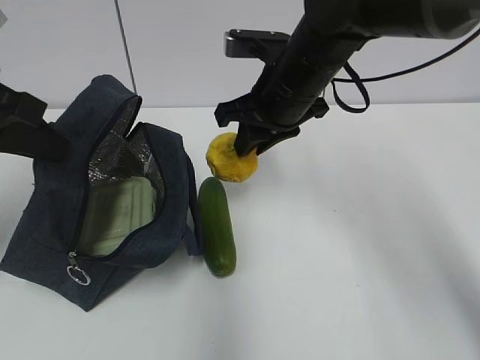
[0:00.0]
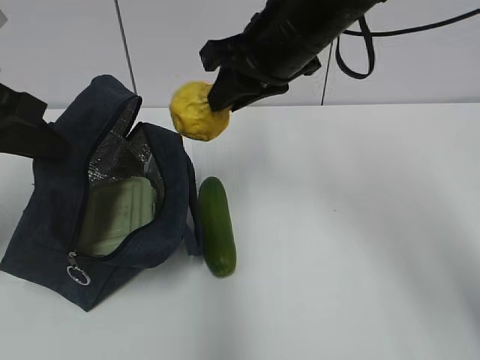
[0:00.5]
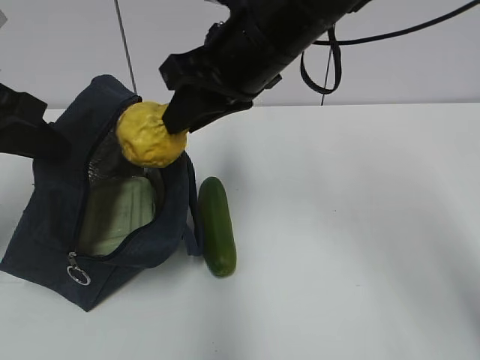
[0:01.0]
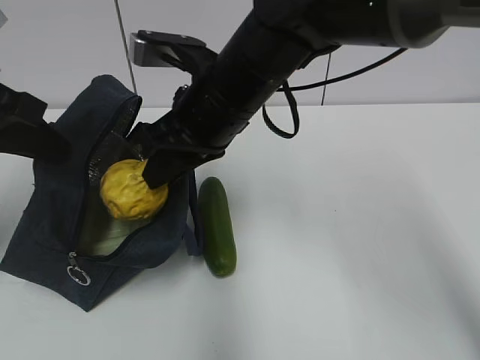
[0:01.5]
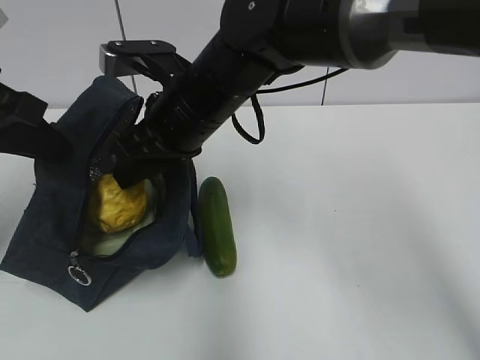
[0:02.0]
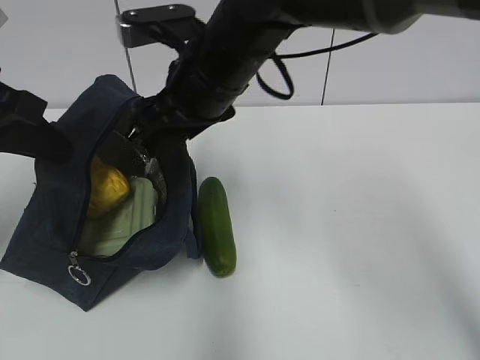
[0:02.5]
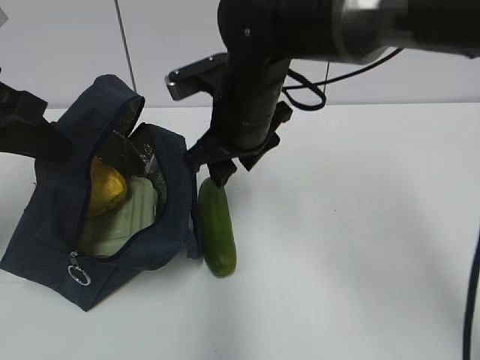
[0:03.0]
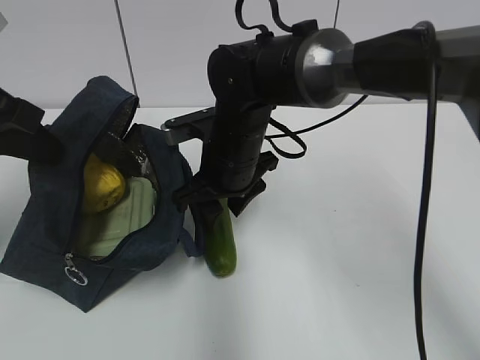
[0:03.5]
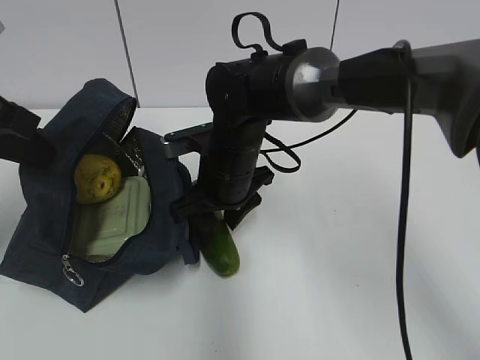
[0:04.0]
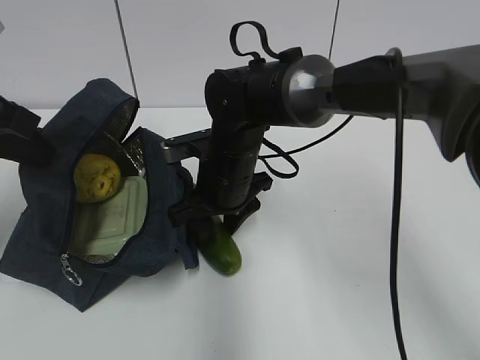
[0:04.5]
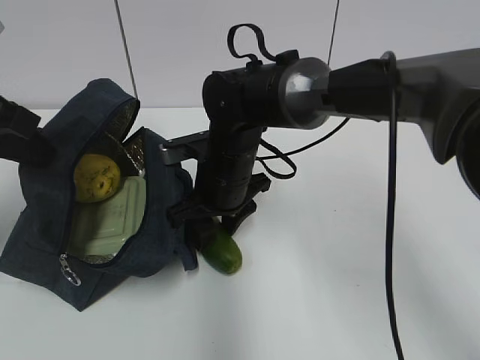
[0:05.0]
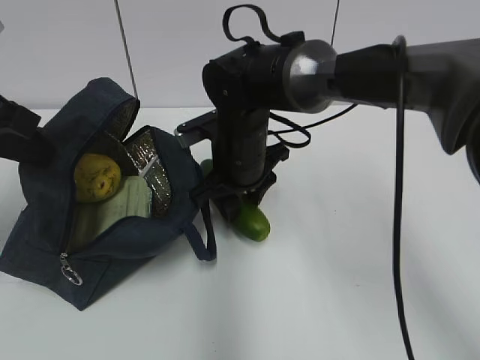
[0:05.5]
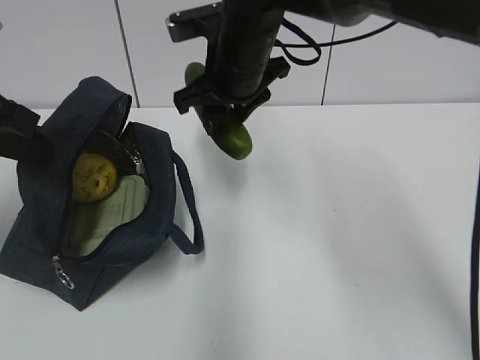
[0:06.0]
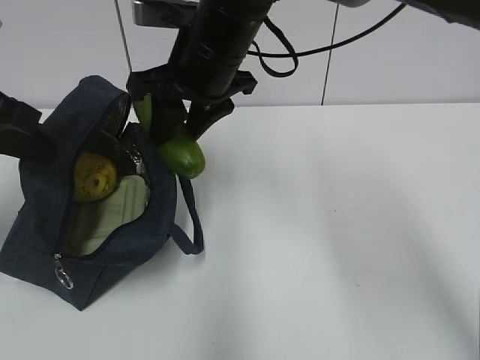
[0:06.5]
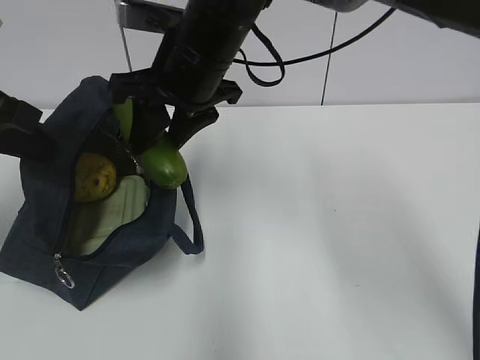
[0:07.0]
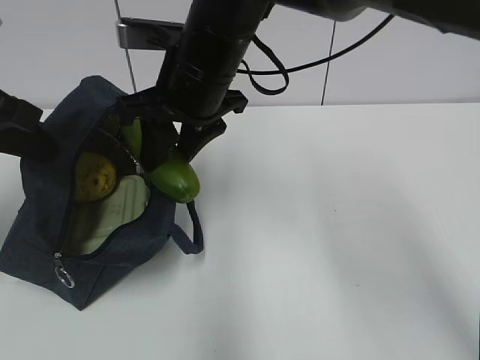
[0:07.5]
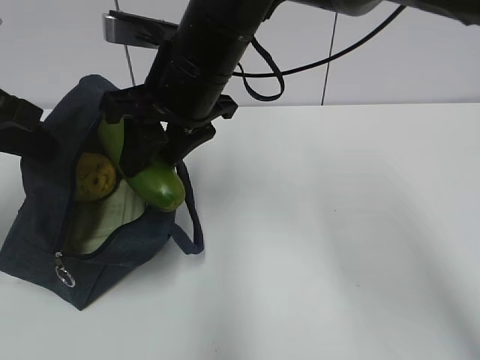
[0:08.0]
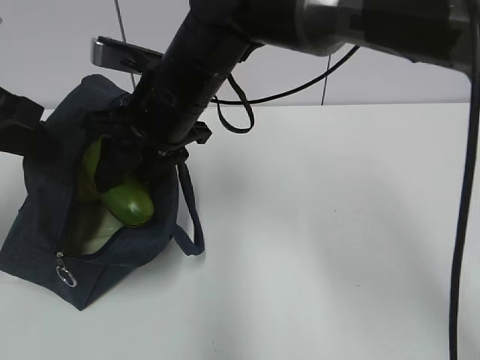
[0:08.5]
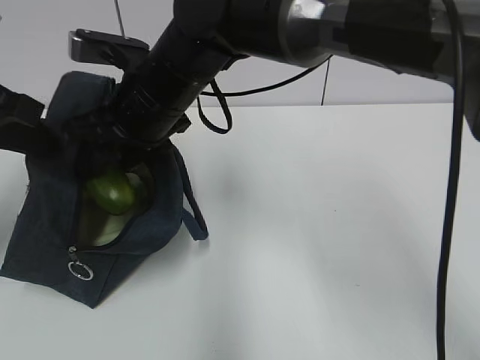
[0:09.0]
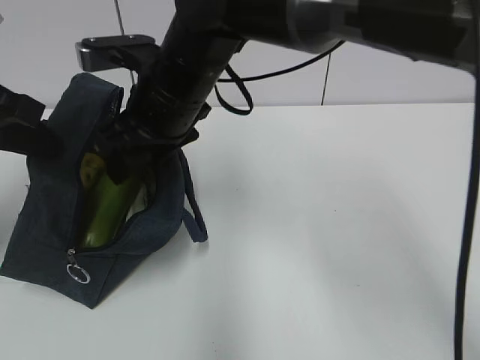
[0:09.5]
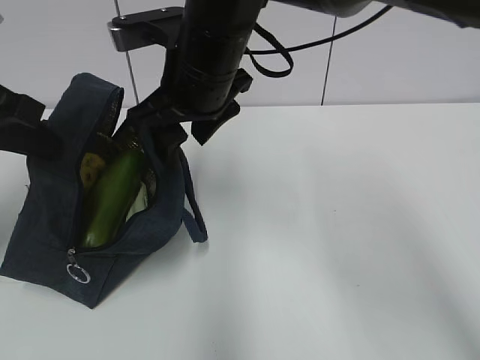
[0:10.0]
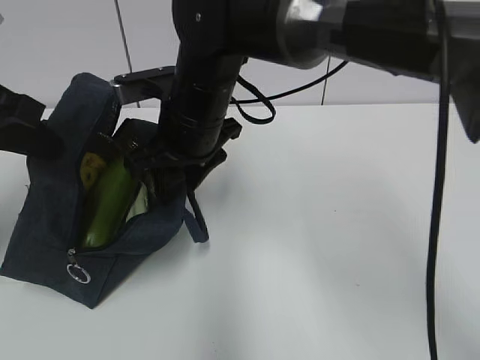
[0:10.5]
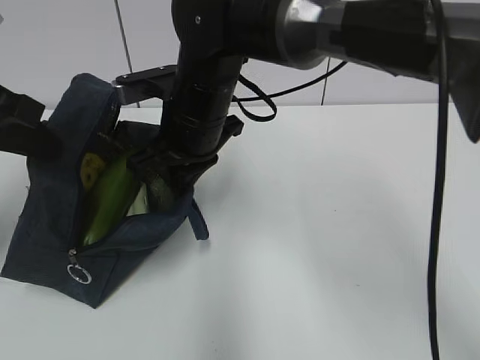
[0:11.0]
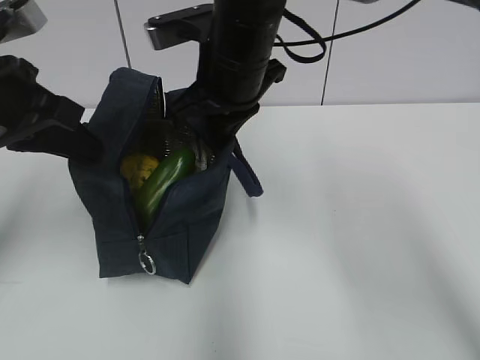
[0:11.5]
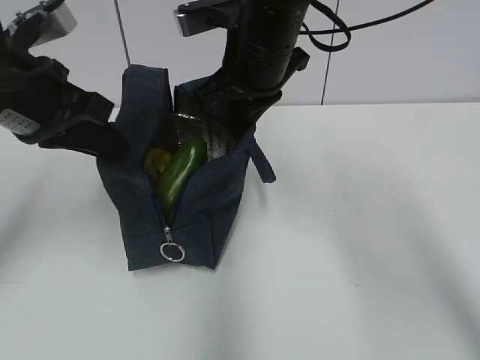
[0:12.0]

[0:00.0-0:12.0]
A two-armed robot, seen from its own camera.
Step, 0:00.0 to 0:02.0: Place it into the bag with your right hand.
Step, 0:02.5 to 0:05.0: Grab the cucumber with your right hand.
Step, 0:09.5 to 0:10.5: Grab the lunch bag with your right hand.
0:00.0 to 0:02.0: The right gripper is displaced to the left by roughly 10 cm.
0:02.0 to 0:04.0: The right gripper is displaced downward by about 10 cm.
0:04.0 to 0:06.0: The right gripper travels upward by some 10 cm.
0:06.0 to 0:08.0: The right gripper heads backward, covering about 5 cm.
0:08.0 to 0:10.0: There are only small adjustments of the grippers.
0:10.0 to 0:12.0: Both grippers travel together to the right, approximately 5 cm. The right gripper closes up.

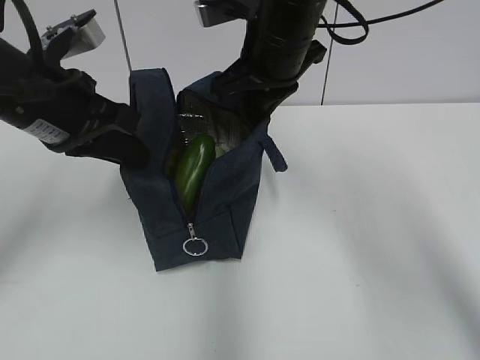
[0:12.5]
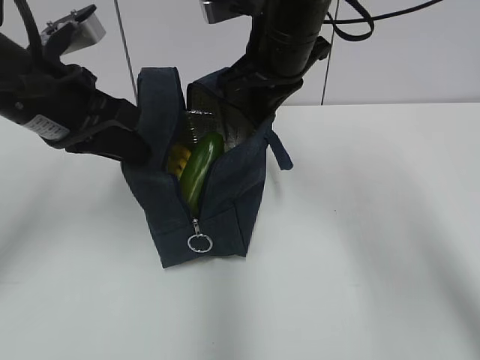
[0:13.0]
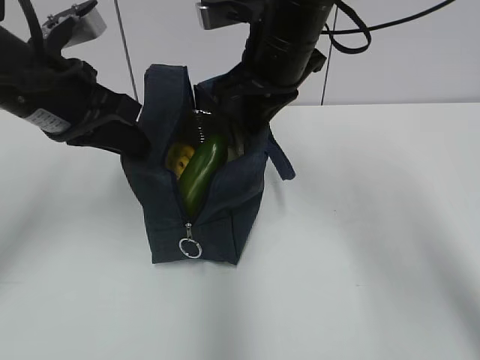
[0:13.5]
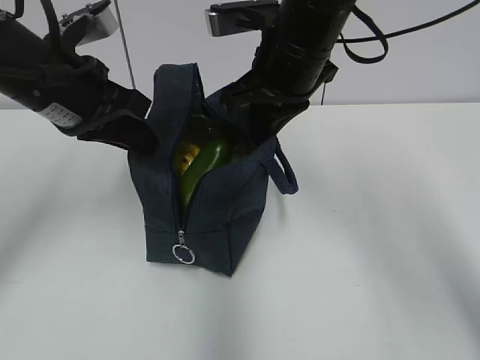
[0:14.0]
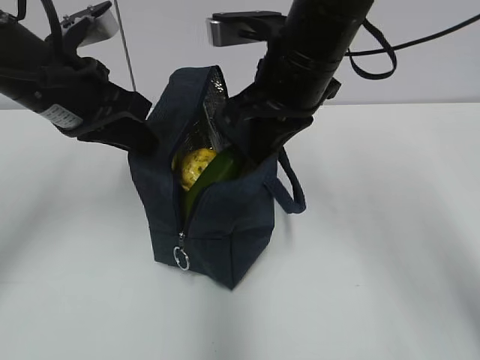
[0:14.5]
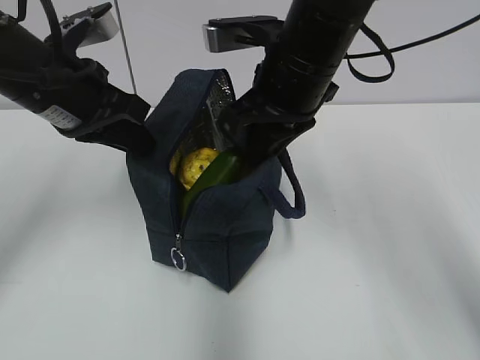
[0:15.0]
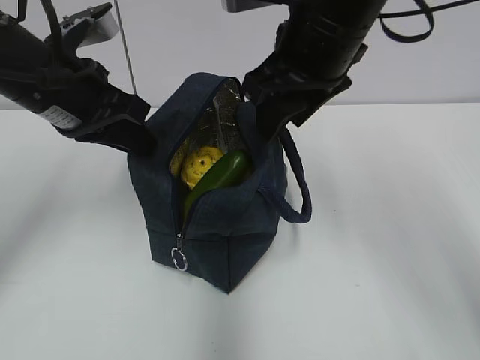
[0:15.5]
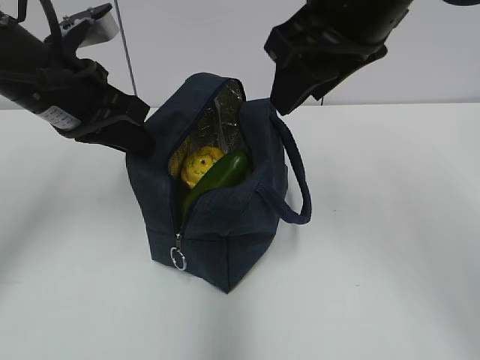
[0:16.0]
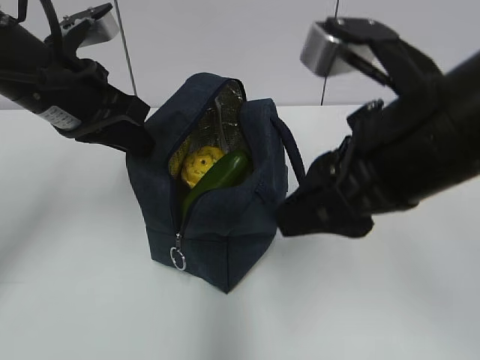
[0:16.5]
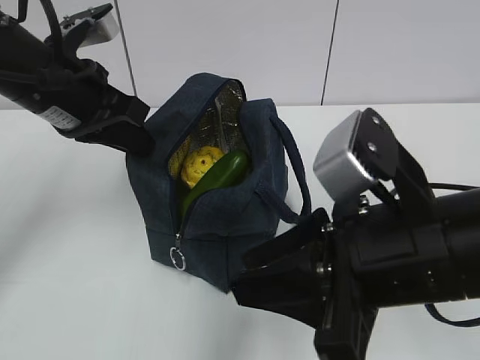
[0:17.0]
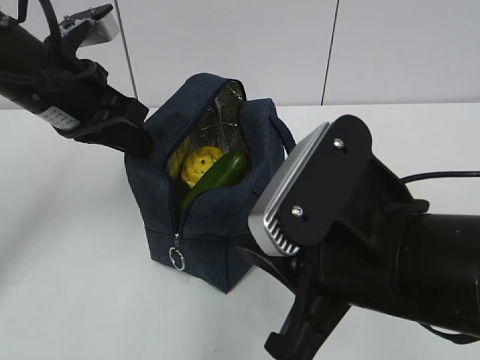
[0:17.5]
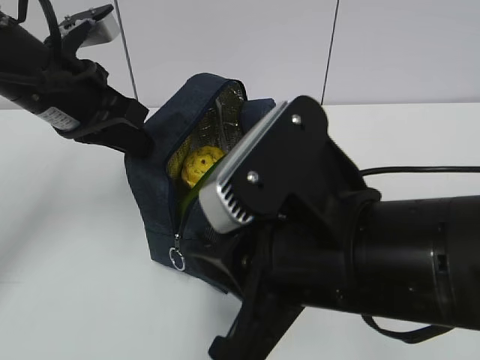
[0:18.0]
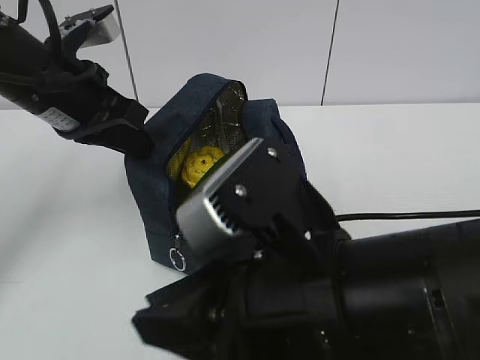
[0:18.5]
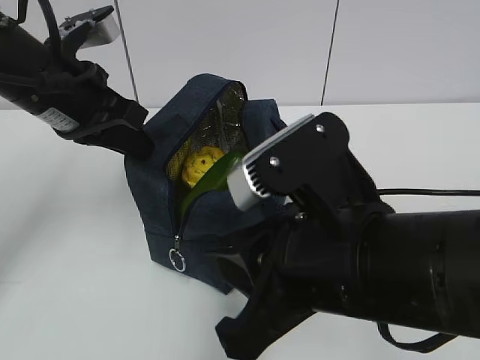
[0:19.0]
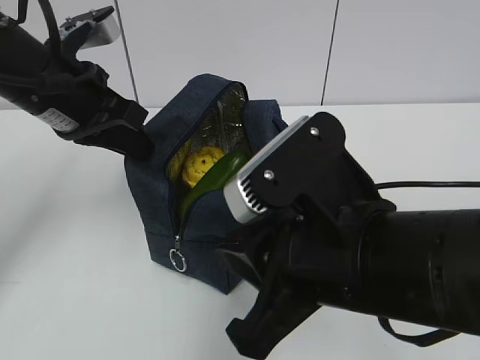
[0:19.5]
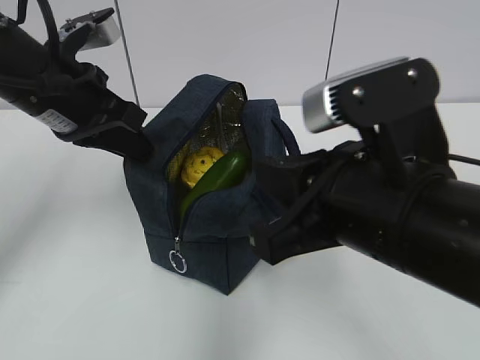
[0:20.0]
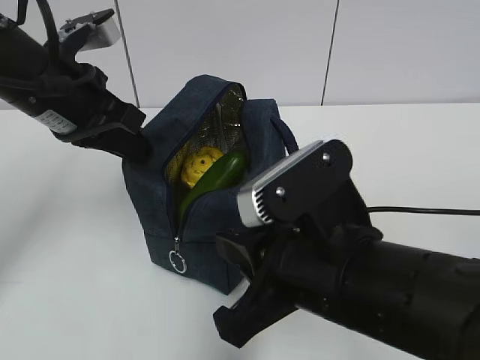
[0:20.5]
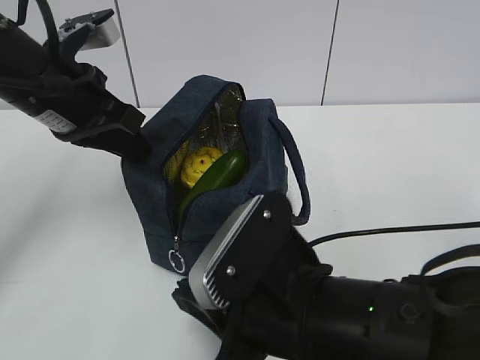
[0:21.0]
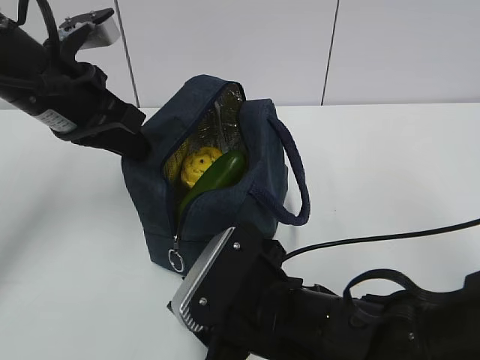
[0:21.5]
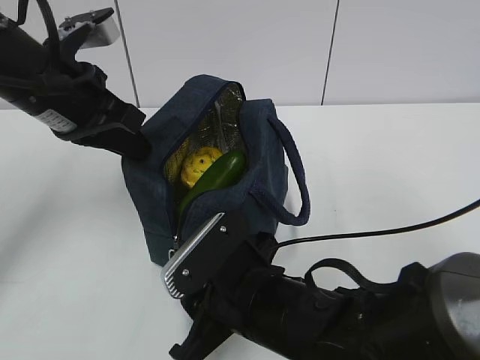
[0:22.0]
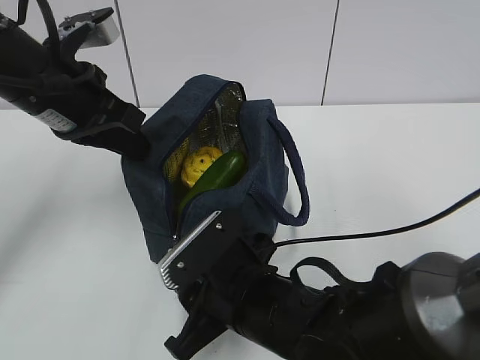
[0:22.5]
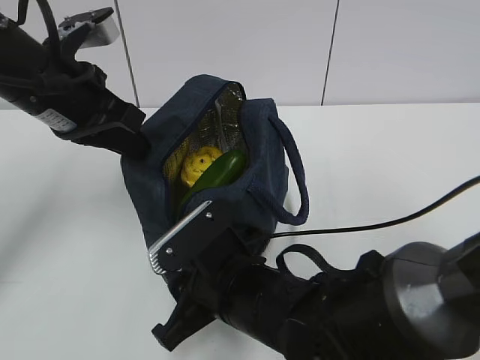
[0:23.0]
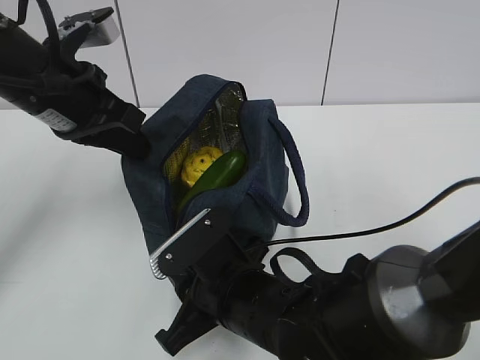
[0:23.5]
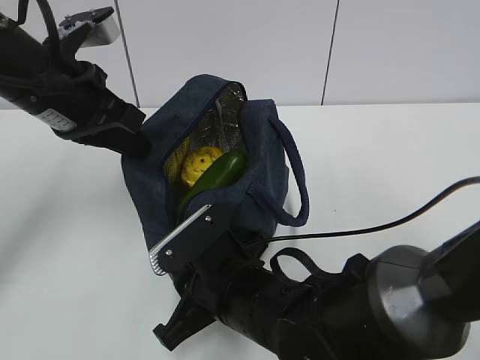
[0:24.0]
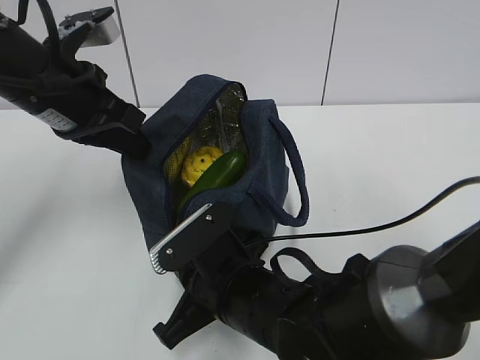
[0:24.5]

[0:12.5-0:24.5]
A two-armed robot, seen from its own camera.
Step, 0:12.5 to 0:15.0: Move the lunch bag to the right.
0:12.5 to 0:14.5: The grippers move only a little.
0:14.5 to 0:16.5: The right gripper shifts about 15 cm backward, and opens up.
0:16.5 to 0:18.5: The right gripper is displaced to the left and backward by about 10 cm, and closes.
0:18.5 to 0:20.5: The right gripper moves approximately 5 cm.
0:20.5 to 0:22.5: The right gripper shifts roughly 10 cm downward and to the left, and opens its fingers.
0:22.5 to 0:24.5: The right gripper closes its fingers.

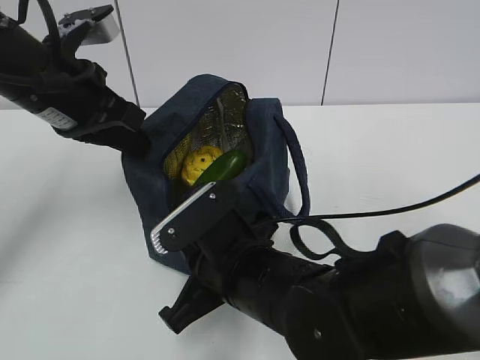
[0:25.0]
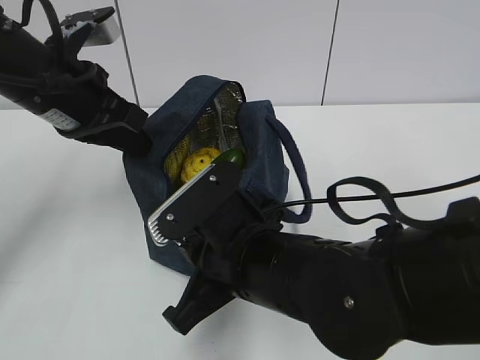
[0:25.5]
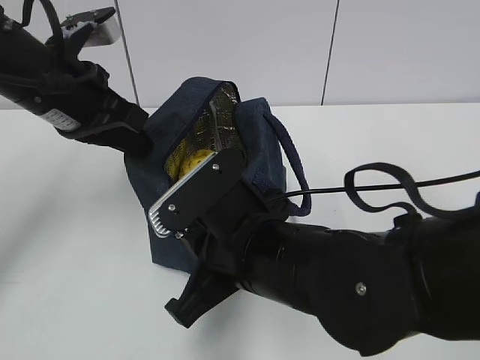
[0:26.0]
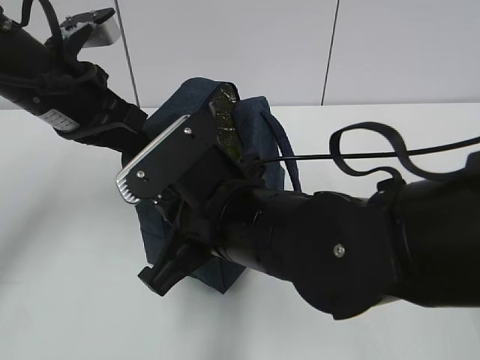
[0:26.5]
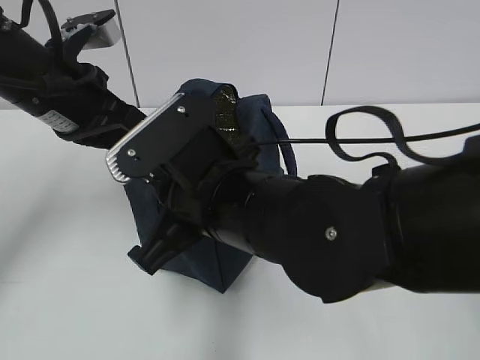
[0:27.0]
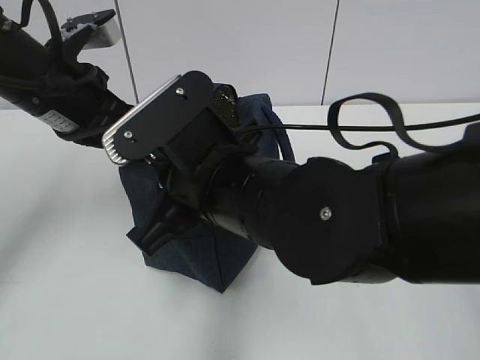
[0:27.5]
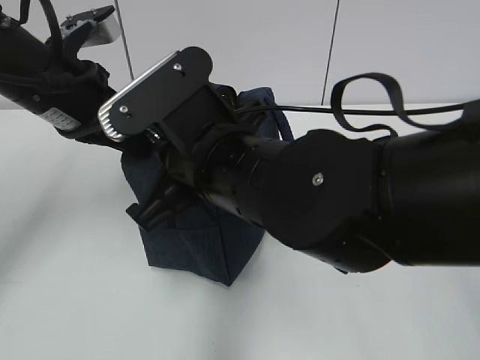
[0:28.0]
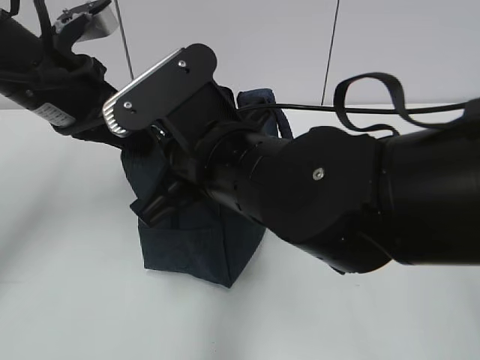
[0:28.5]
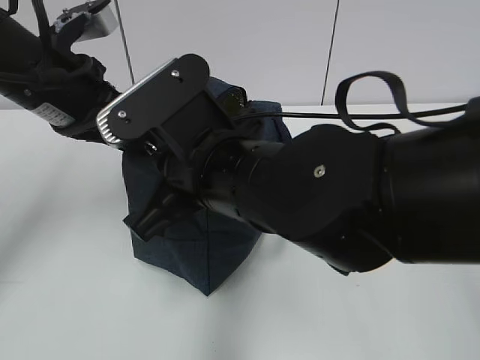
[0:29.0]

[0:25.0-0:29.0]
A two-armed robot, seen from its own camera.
0:25.0 to 0:27.0: The right gripper goes about 10 cm upward.
0:27.0 to 0:29.0: The left gripper opens.
